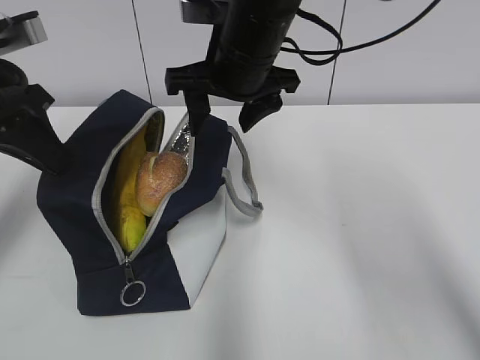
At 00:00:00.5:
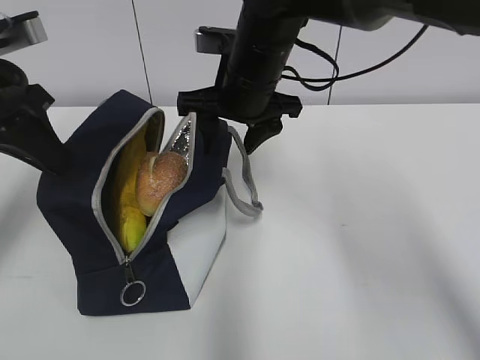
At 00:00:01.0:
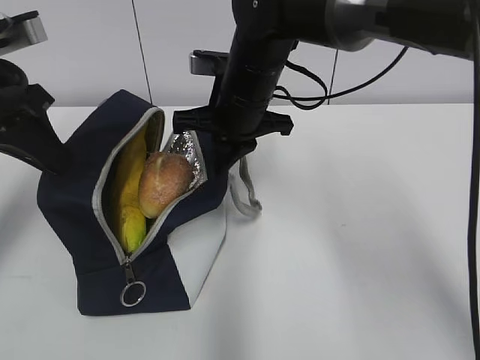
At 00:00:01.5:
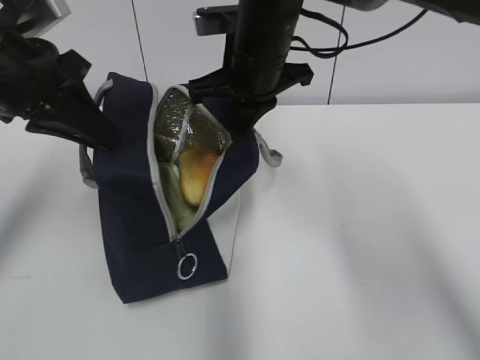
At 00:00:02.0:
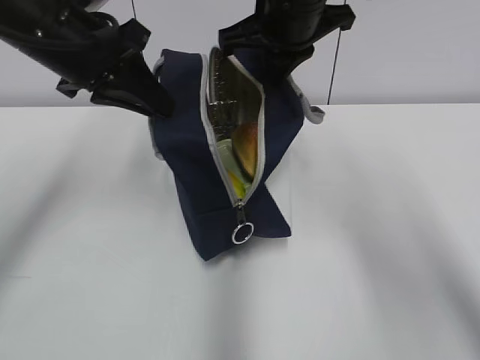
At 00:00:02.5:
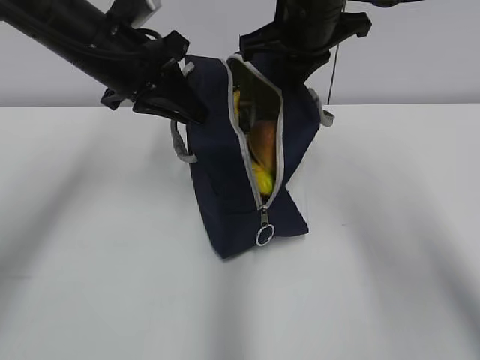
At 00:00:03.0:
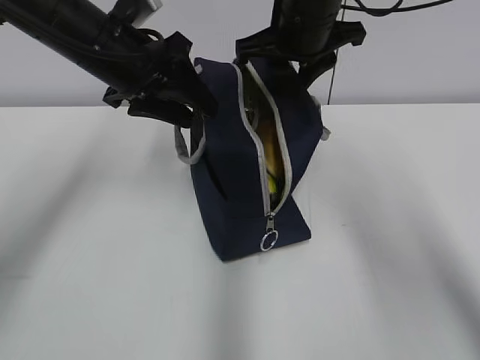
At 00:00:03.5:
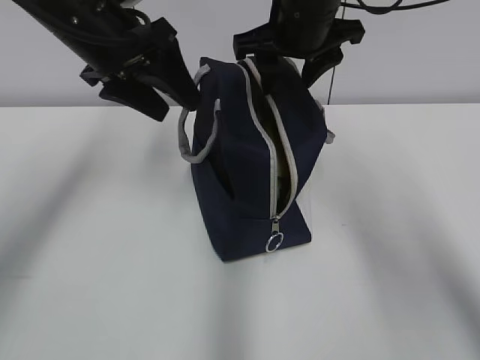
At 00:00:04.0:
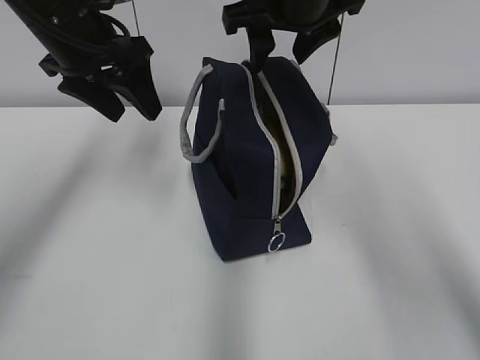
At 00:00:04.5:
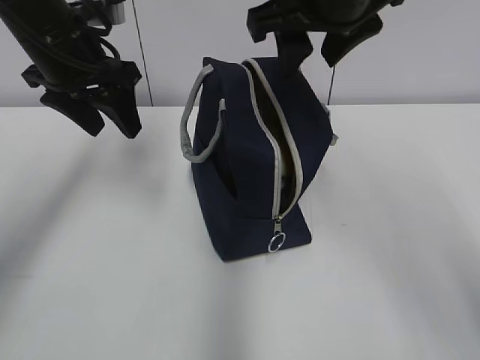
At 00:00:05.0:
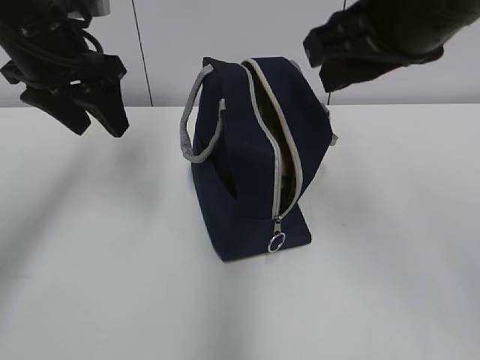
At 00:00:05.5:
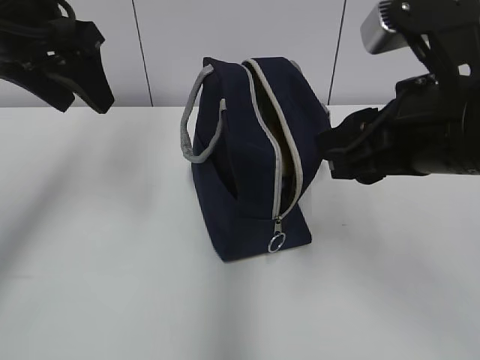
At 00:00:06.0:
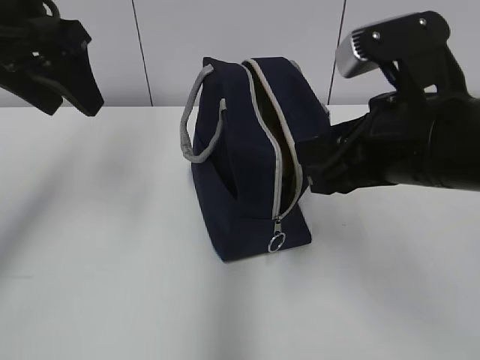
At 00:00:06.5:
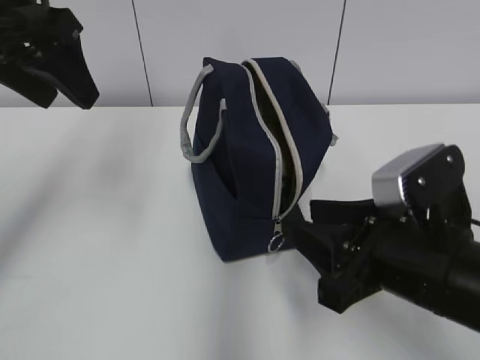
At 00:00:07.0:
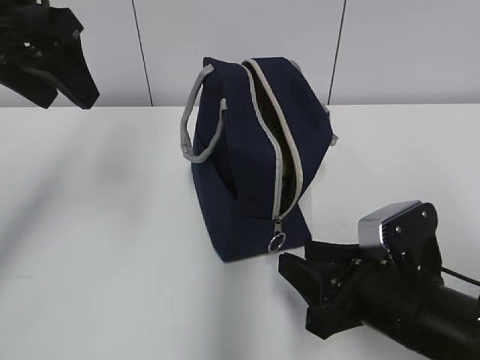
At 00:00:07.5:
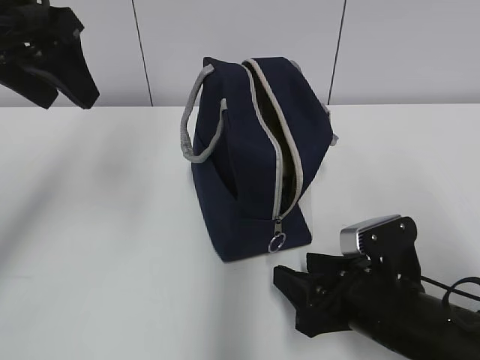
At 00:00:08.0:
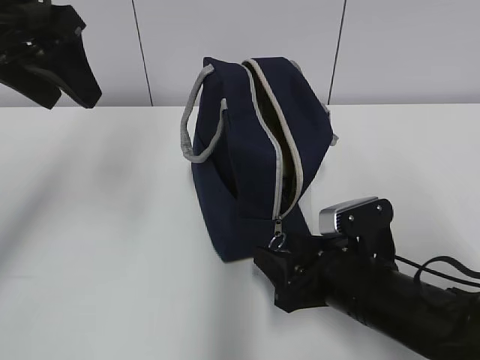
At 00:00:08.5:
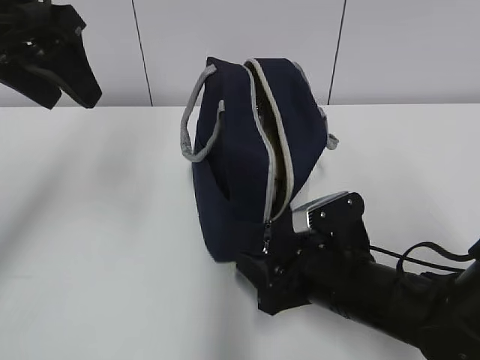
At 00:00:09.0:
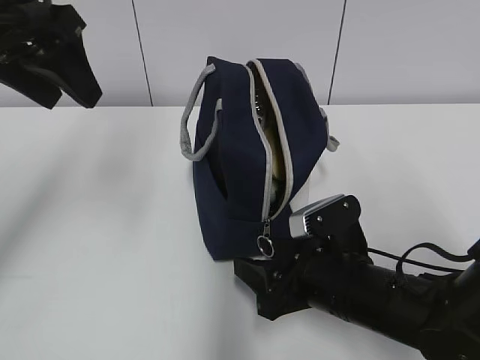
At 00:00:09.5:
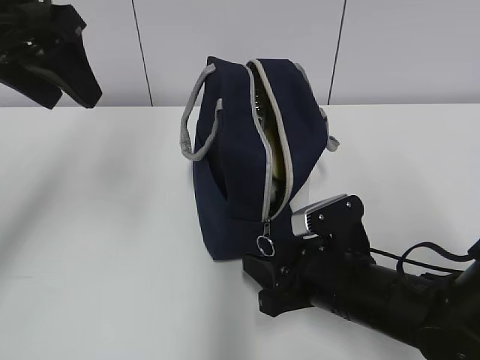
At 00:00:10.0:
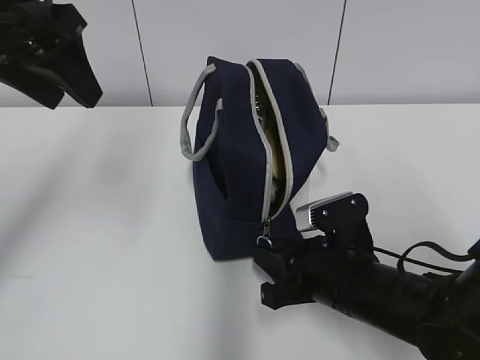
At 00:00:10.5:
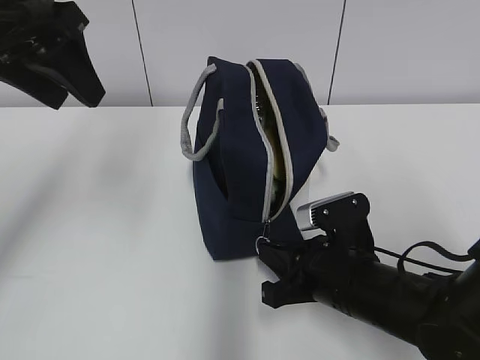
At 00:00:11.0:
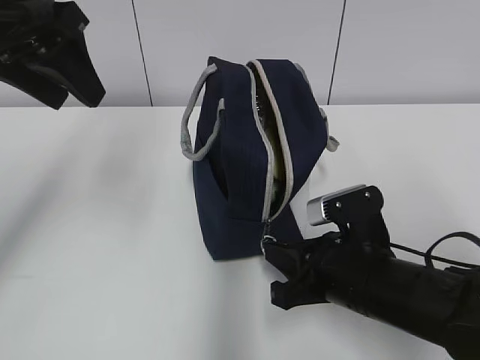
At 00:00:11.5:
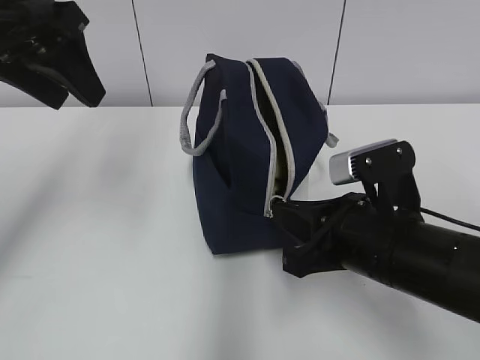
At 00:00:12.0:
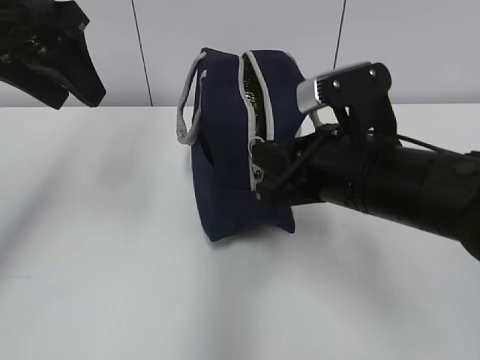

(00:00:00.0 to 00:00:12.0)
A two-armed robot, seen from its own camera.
00:00:00.0 - 00:00:02.0: The left gripper moves to the right, some 10 cm. Meanwhile the right gripper shifts by approximately 5 cm, and closes up.
00:00:02.0 - 00:00:04.0: The right gripper opens its fingers. Meanwhile the left gripper opens.
00:00:04.0 - 00:00:06.0: The right gripper is displaced backward and downward by some 20 cm. Meanwhile the left gripper heads backward, covering approximately 5 cm.
00:00:06.0 - 00:00:08.0: The right gripper shifts some 20 cm downward.
00:00:08.0 - 00:00:10.0: The right gripper closes its fingers.
00:00:10.0 - 00:00:12.0: The right gripper travels upward by roughly 15 cm.

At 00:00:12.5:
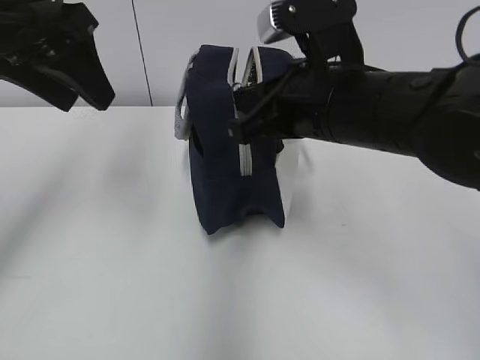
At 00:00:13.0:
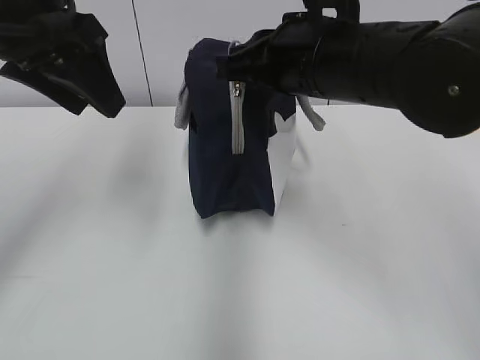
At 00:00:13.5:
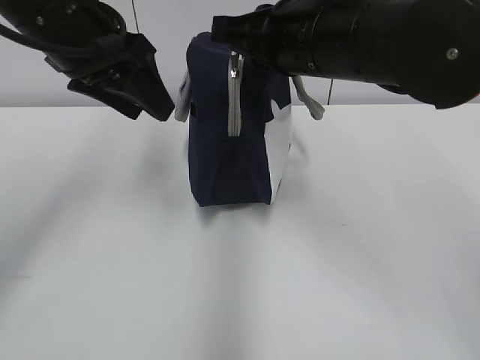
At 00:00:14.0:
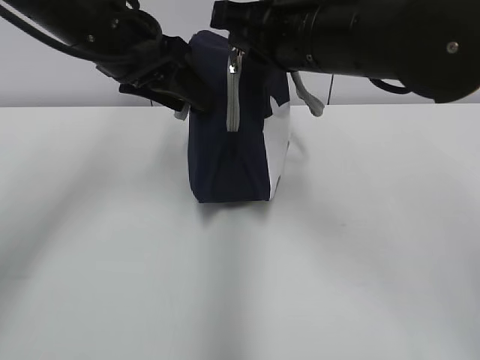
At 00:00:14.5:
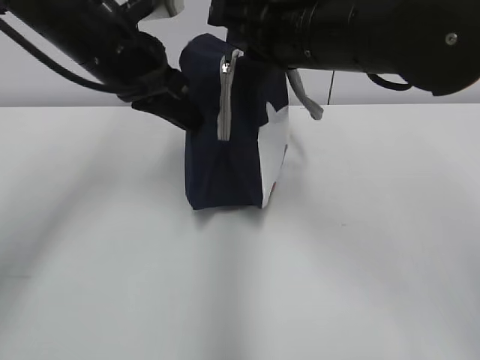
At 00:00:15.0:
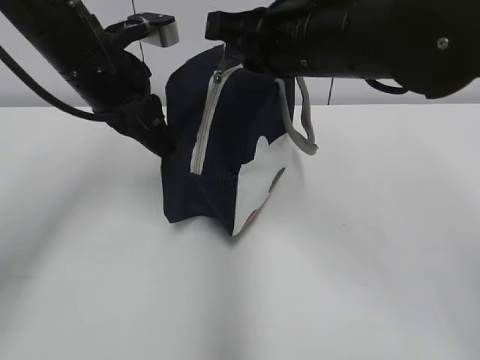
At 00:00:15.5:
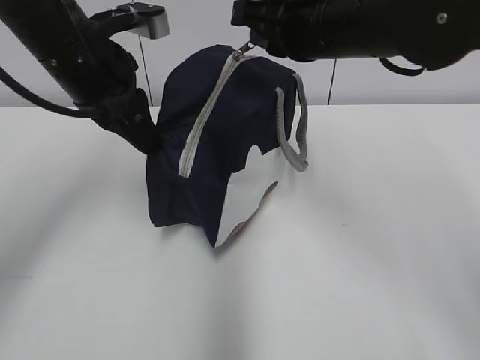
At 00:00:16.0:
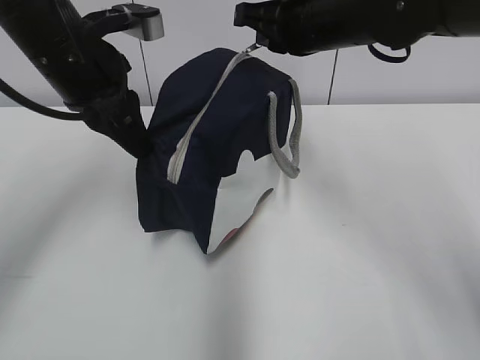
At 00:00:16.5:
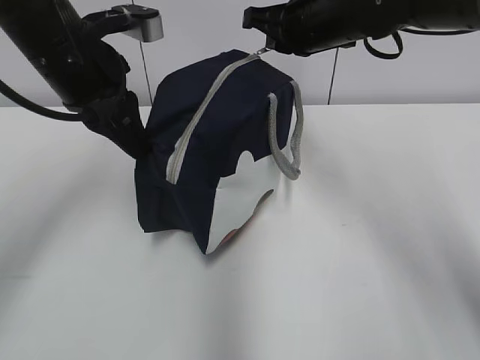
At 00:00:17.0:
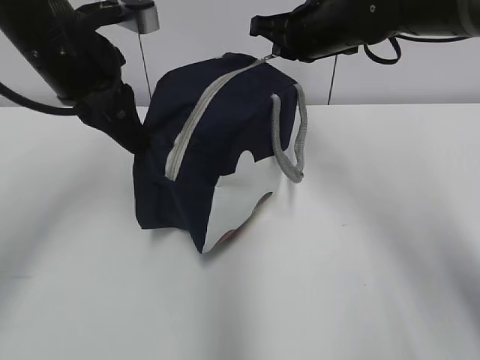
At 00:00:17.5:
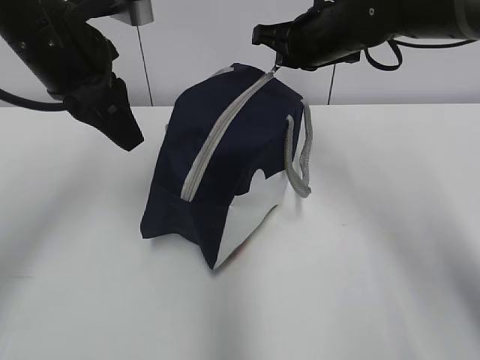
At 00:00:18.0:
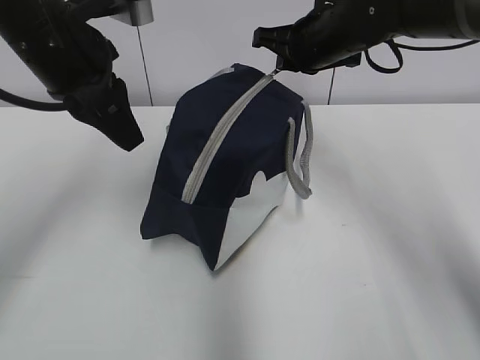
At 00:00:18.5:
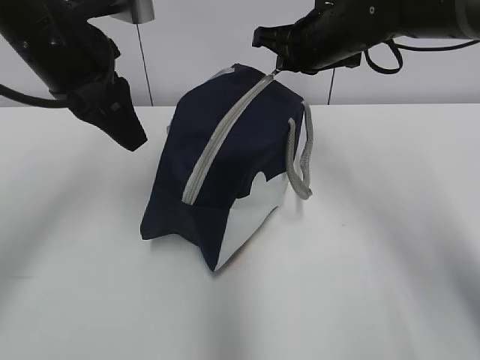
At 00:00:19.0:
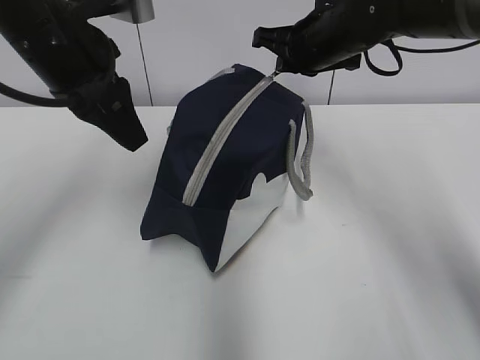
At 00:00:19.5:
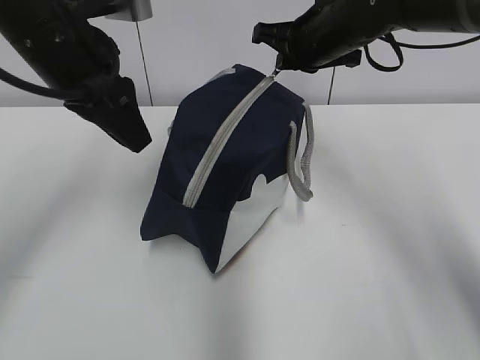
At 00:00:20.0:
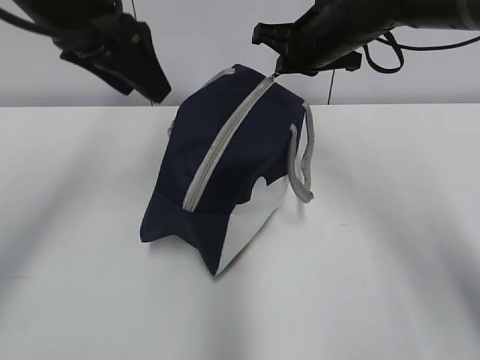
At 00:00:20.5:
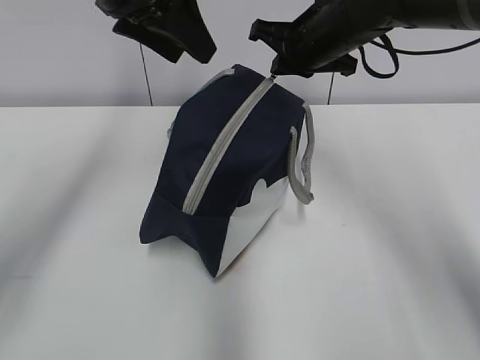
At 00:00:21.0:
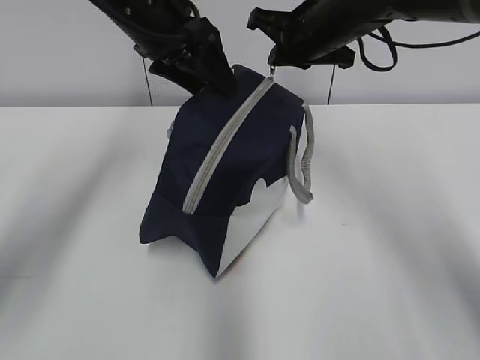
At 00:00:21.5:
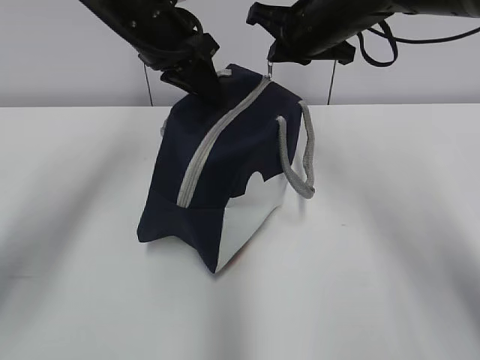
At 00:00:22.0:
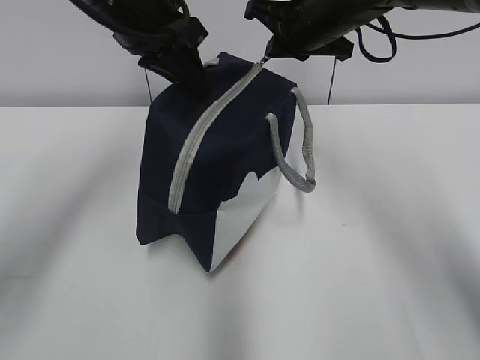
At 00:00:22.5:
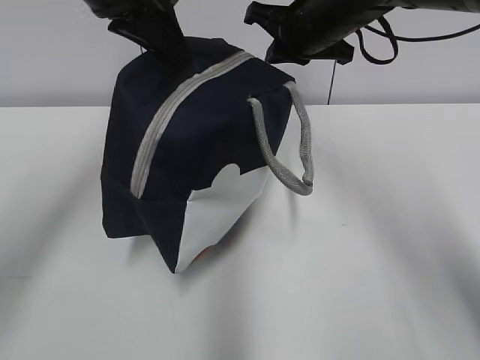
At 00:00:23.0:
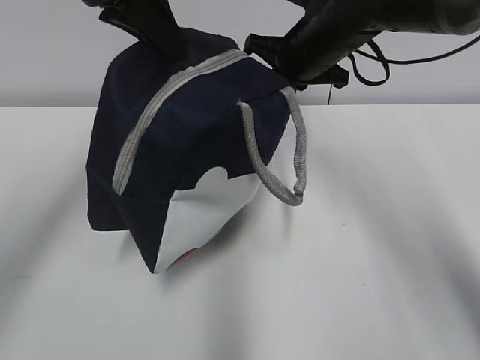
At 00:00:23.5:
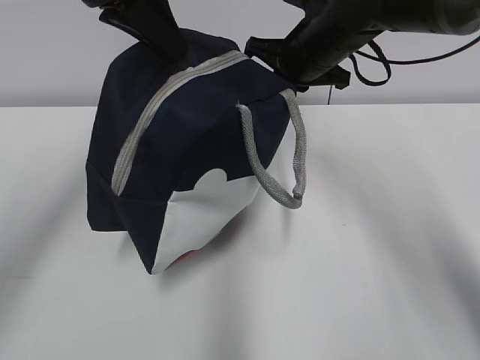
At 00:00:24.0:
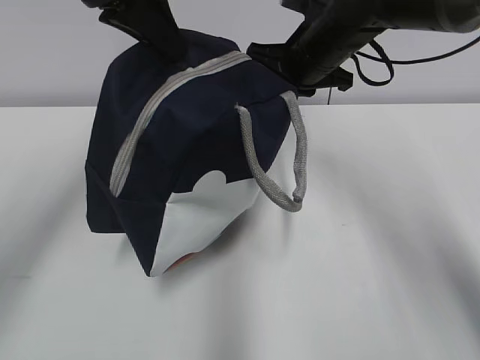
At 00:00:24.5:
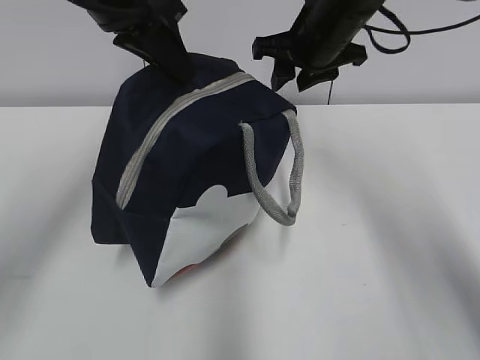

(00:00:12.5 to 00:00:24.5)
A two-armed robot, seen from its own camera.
00:00:12.5 - 00:00:14.5: The right gripper moves roughly 5 cm. Meanwhile the left gripper goes about 10 cm downward, forward and to the right, and closes up.
00:00:14.5 - 00:00:16.5: The right gripper is displaced forward by about 10 cm.
00:00:16.5 - 00:00:18.5: There are only small adjustments of the grippers.
00:00:18.5 - 00:00:20.5: The left gripper goes roughly 5 cm forward, and opens.
00:00:20.5 - 00:00:22.5: The left gripper travels downward and back again, roughly 5 cm each way, and closes its fingers.
00:00:22.5 - 00:00:24.5: The right gripper opens up.

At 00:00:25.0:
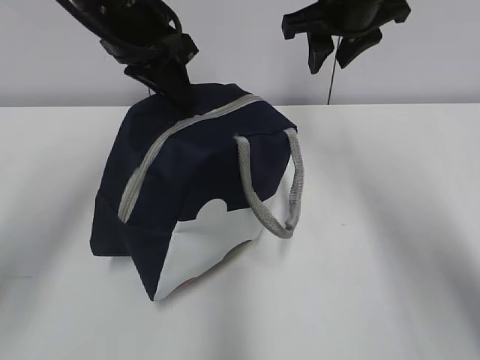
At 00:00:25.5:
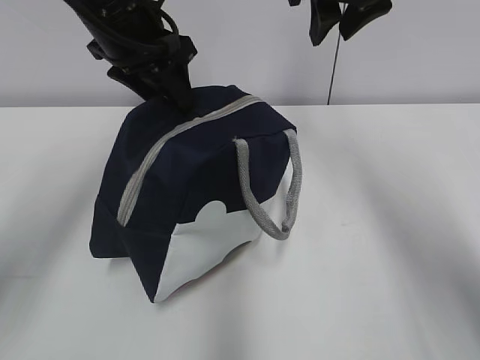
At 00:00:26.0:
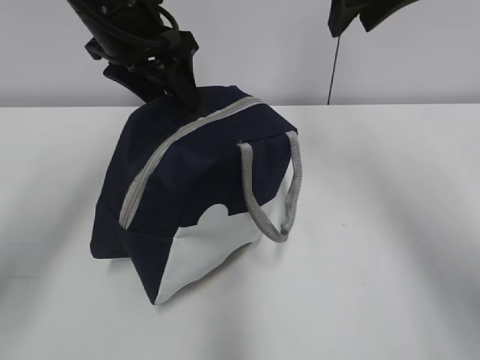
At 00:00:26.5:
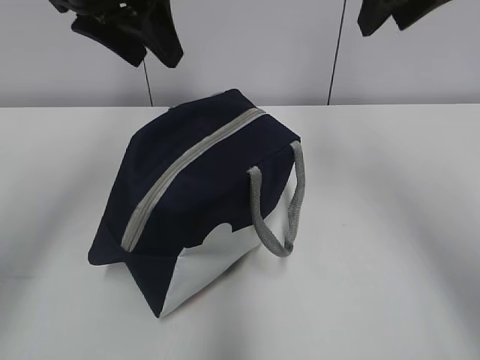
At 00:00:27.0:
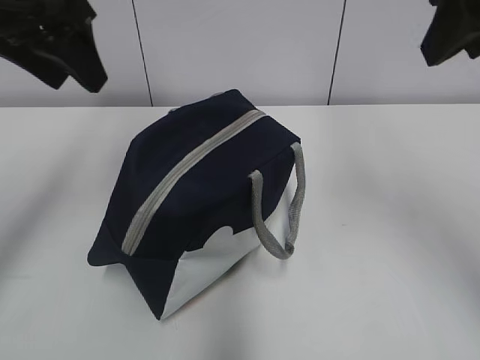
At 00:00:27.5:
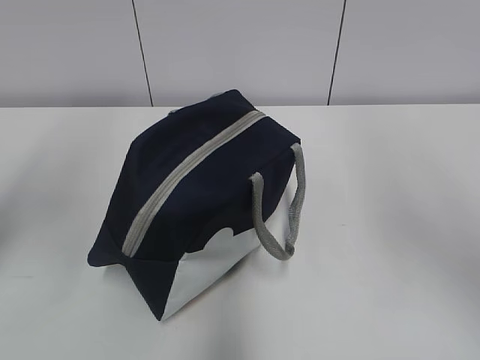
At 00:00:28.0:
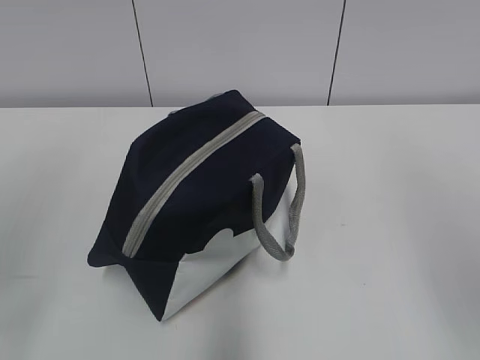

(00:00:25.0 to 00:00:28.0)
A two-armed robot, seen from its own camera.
00:00:25.0 - 00:00:26.5: The right gripper is displaced backward and upward by roughly 15 cm; the left gripper is displaced upward by roughly 5 cm, and opens its fingers.
00:00:26.5 - 00:00:28.0: The right gripper heads backward, covering approximately 25 cm, while the left gripper moves backward and to the left, roughly 25 cm.
